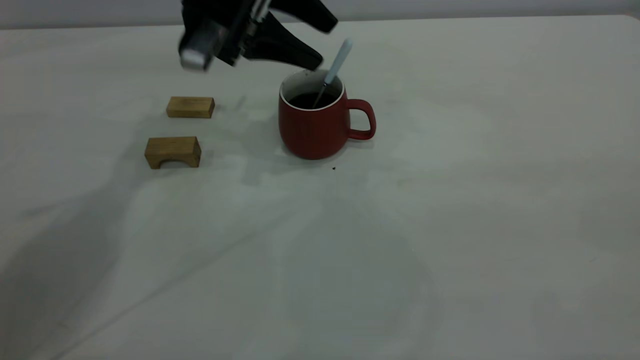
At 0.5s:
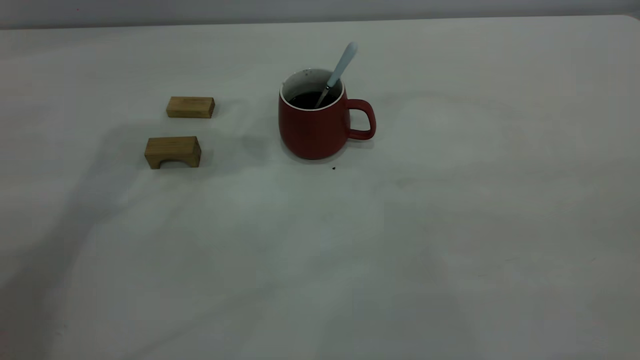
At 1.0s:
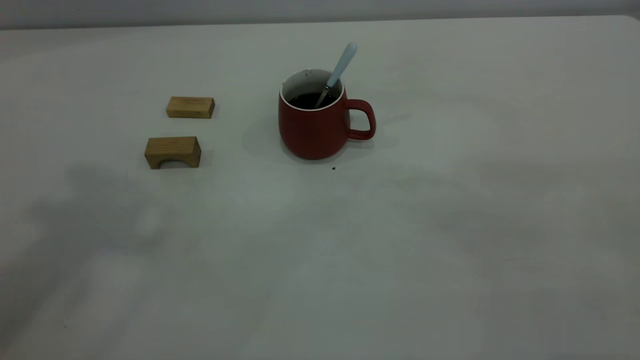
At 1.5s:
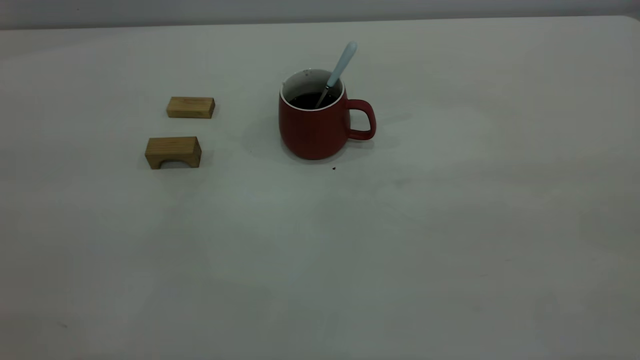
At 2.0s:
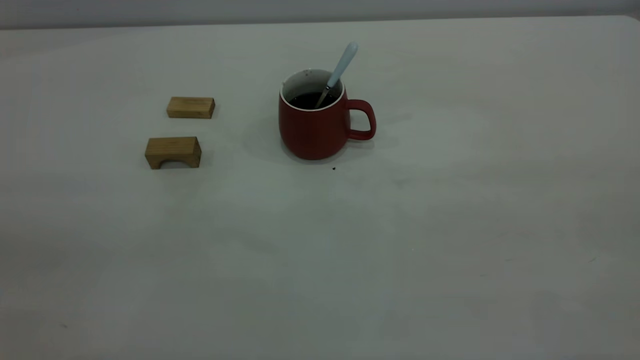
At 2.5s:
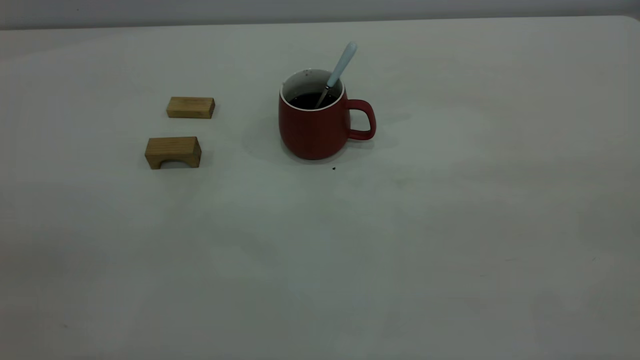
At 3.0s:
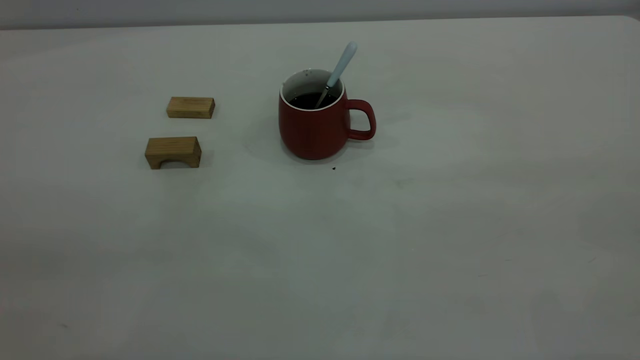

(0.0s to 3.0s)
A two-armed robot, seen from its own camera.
0.0s - 1.5s: The left gripper is displaced backward, upward and to the left by about 50 cm.

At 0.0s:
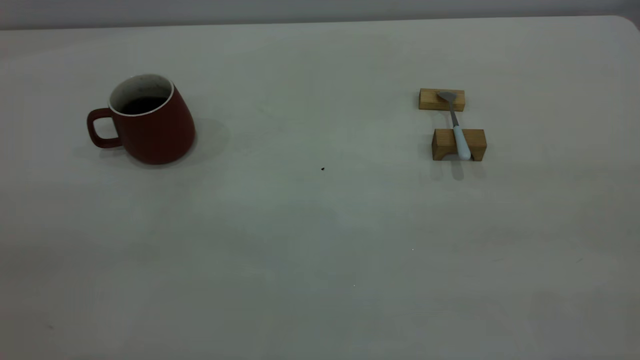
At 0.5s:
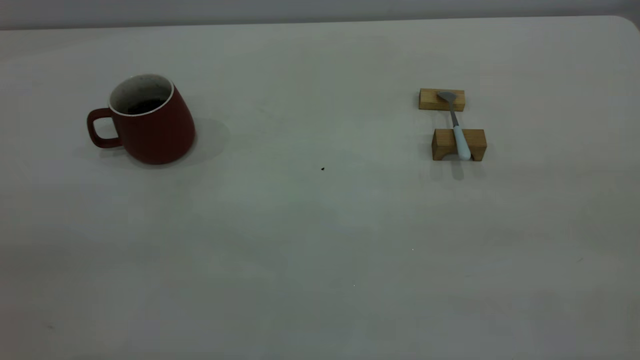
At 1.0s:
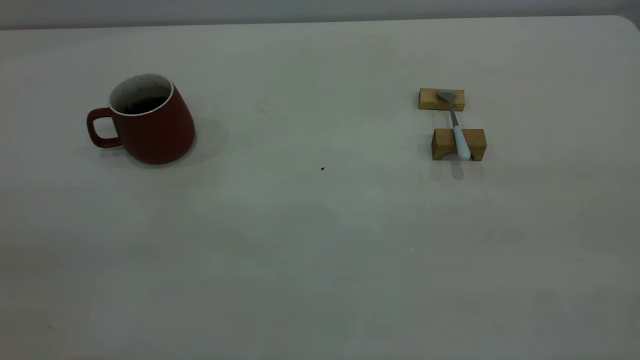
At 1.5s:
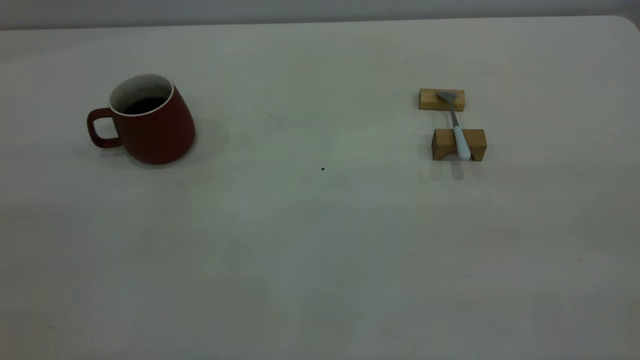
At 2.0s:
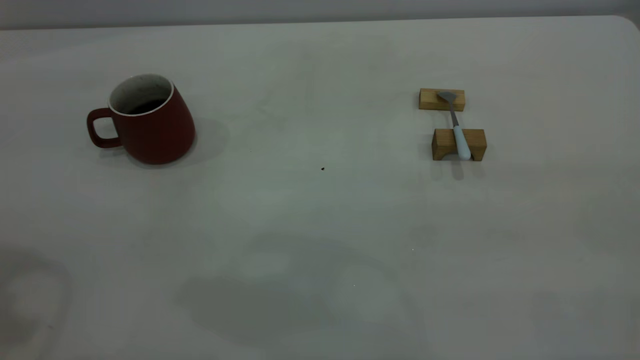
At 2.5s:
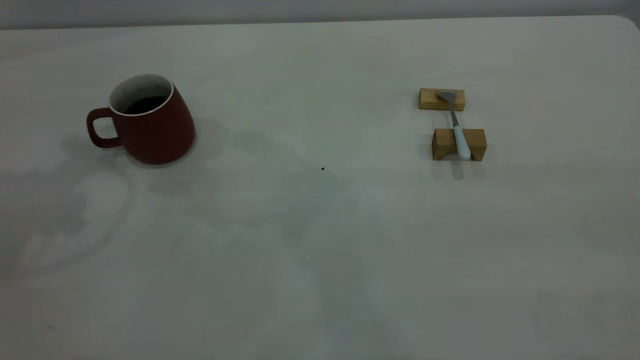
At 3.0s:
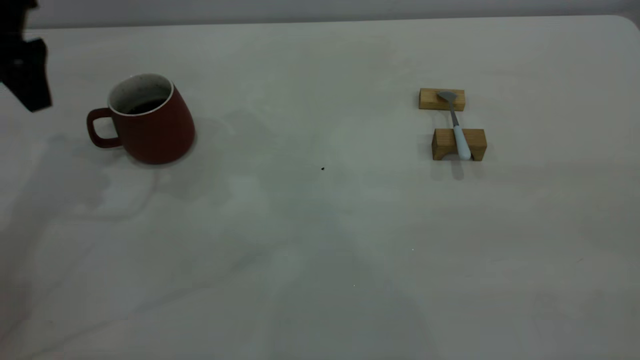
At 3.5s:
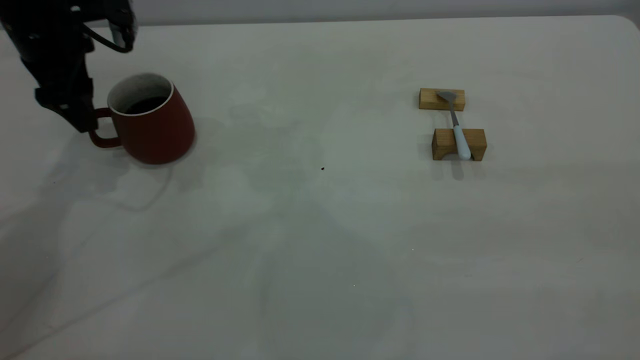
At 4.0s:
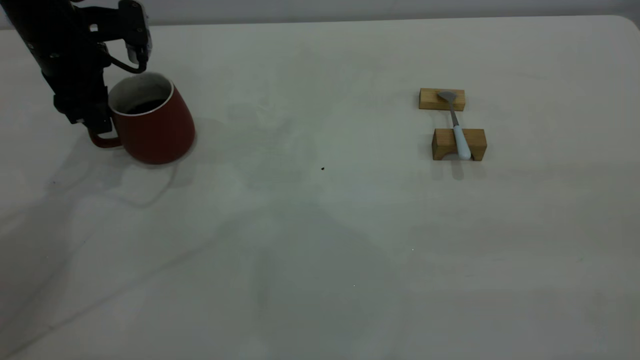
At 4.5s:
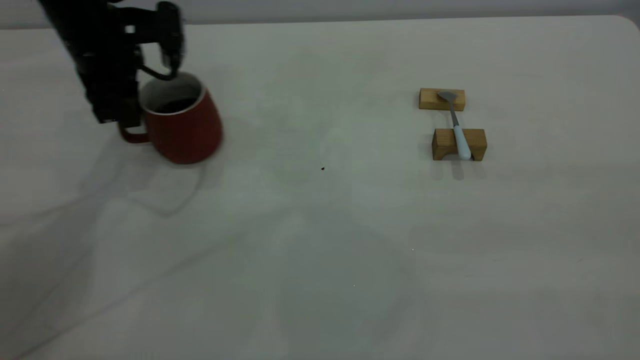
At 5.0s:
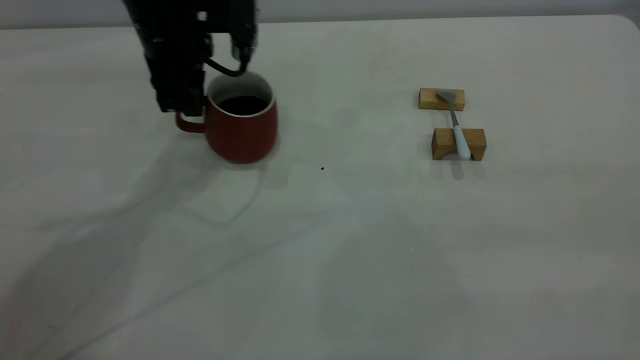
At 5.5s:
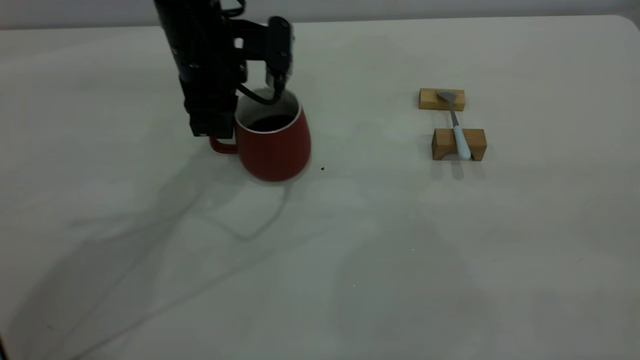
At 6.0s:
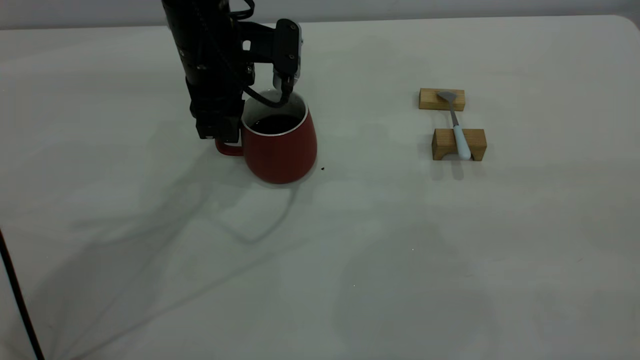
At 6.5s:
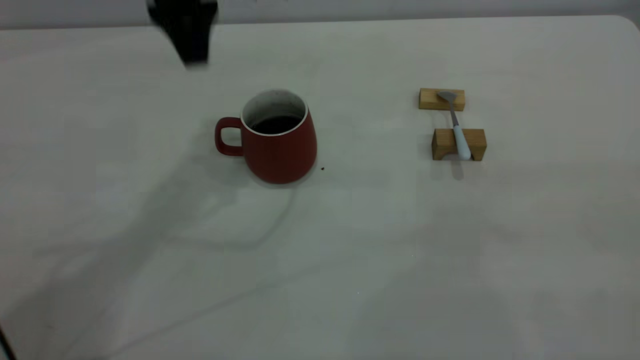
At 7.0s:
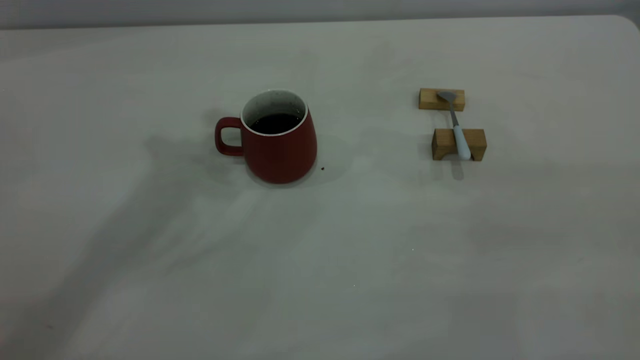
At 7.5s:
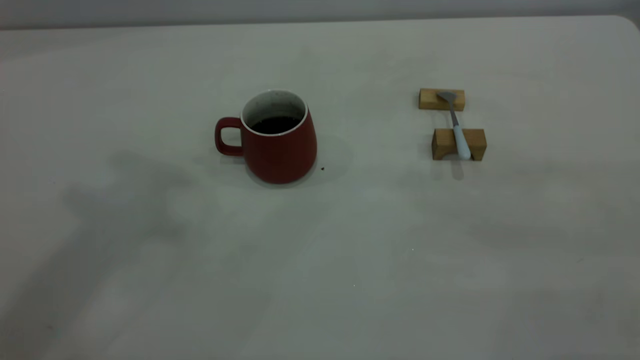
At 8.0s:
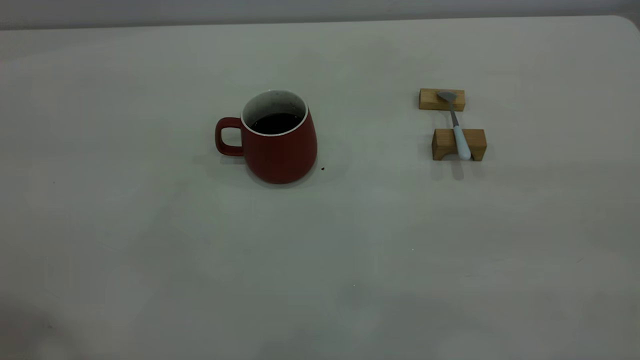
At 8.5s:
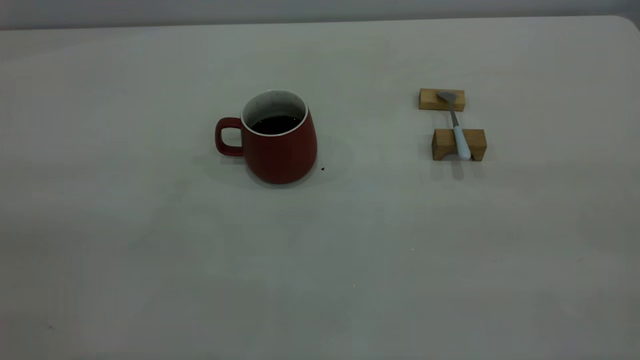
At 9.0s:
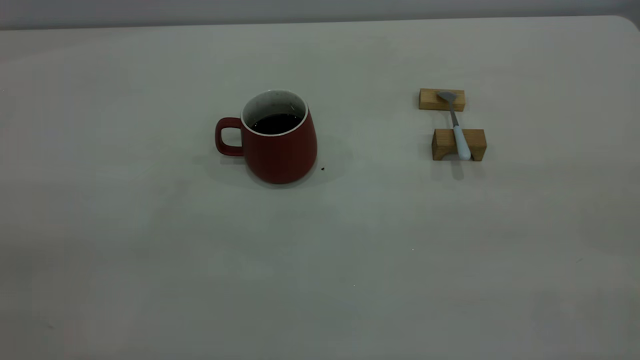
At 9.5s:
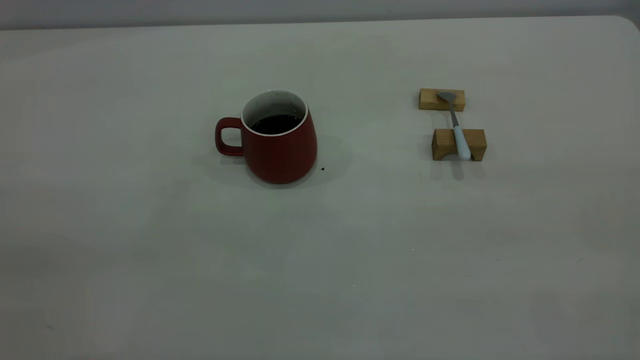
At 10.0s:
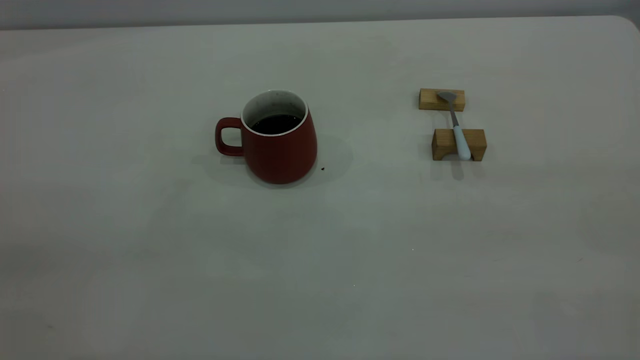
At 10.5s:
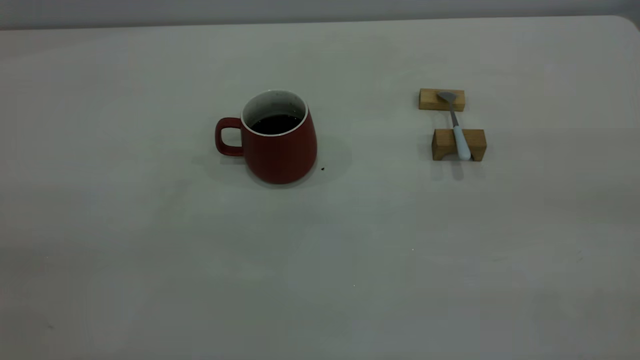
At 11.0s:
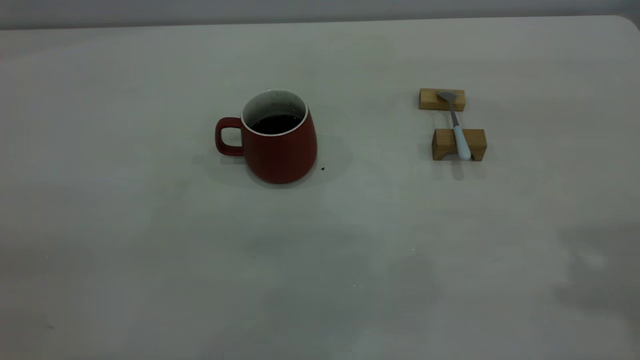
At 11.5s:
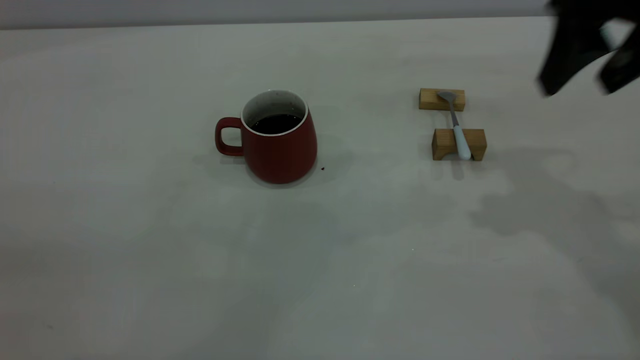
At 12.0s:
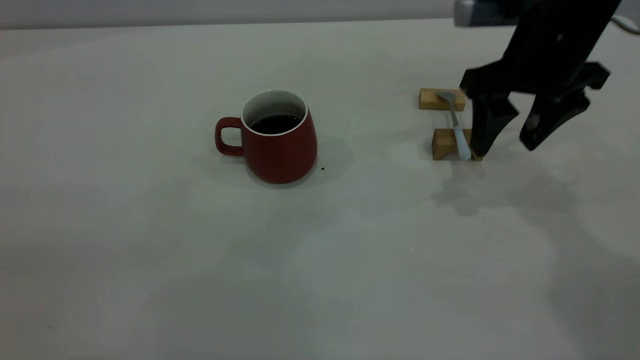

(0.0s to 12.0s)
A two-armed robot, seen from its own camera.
Step, 0.0s - 6.0s: Move the cup with coffee to the center of view.
2.0s - 4.0s: The left gripper goes roughly 35 cm downward and forward, and opens, then closes again.
4.0s - 6.0s: The left gripper shifts some 15 cm to the right.
6.0s - 8.0s: The left gripper moves upward, backward and to the left, about 40 cm, and opens and closes again.
10.0s - 12.0s: The right gripper moves forward and downward, roughly 40 cm, and opens up.

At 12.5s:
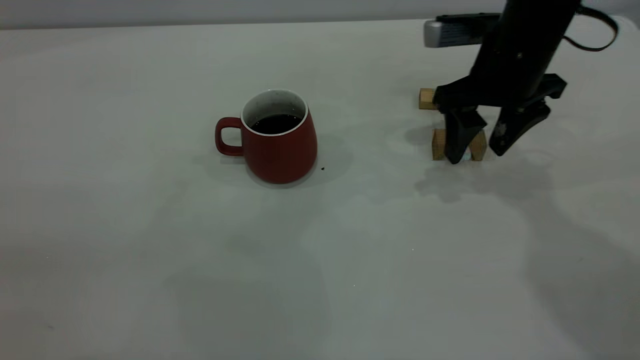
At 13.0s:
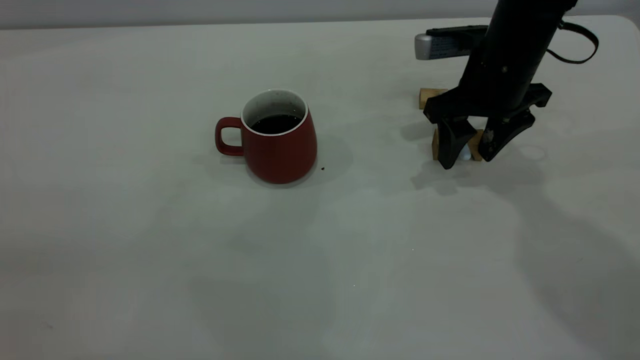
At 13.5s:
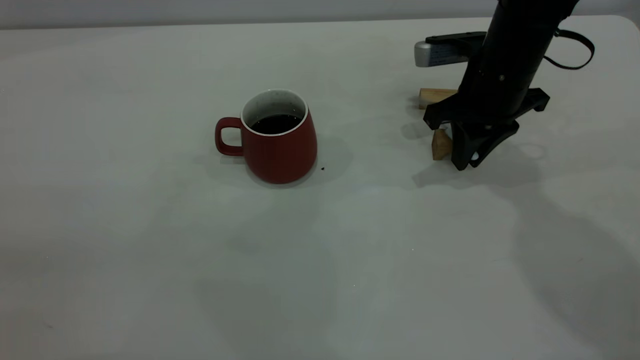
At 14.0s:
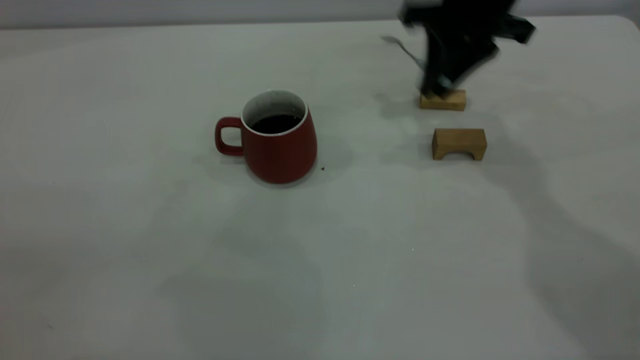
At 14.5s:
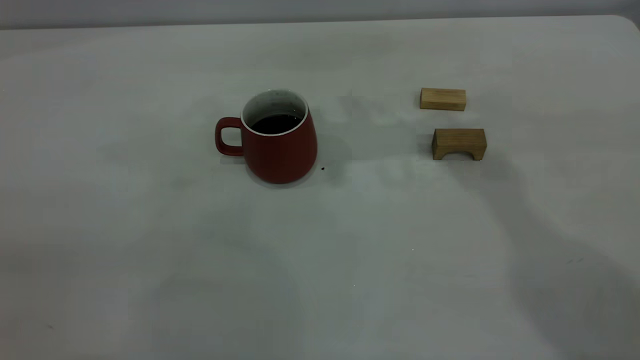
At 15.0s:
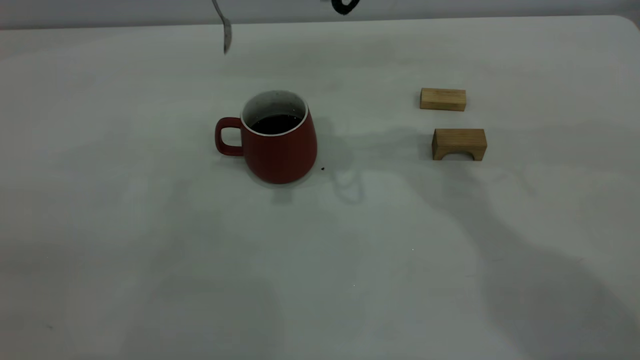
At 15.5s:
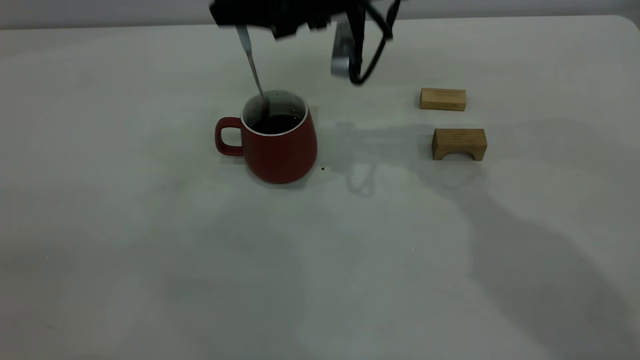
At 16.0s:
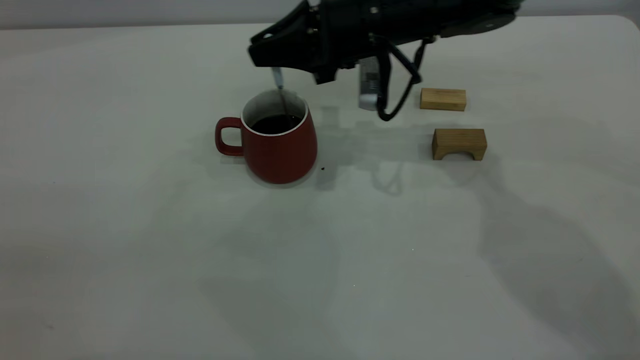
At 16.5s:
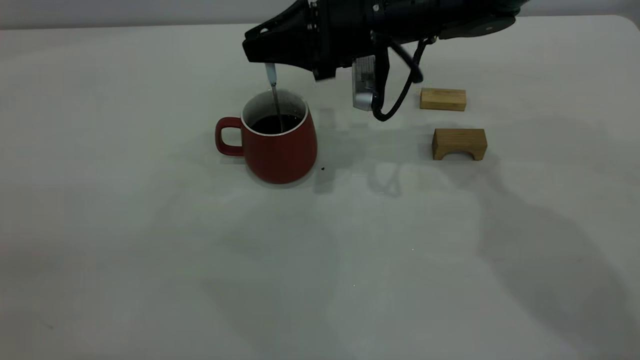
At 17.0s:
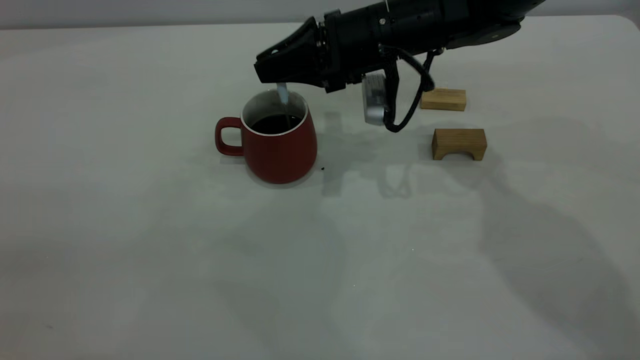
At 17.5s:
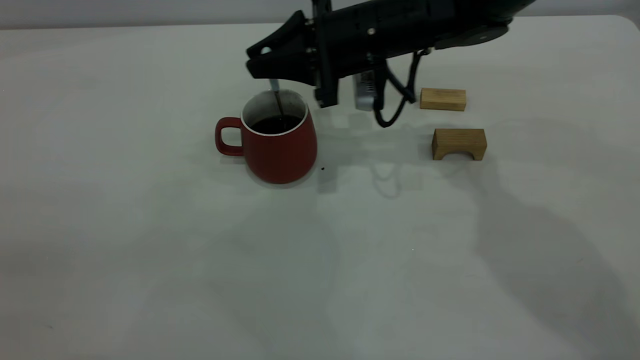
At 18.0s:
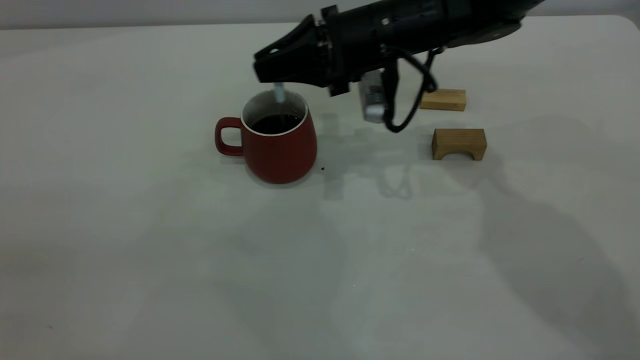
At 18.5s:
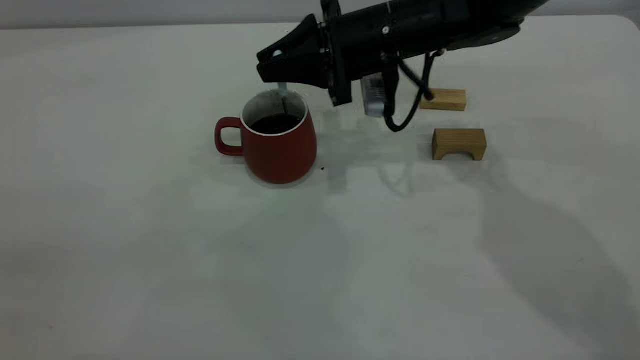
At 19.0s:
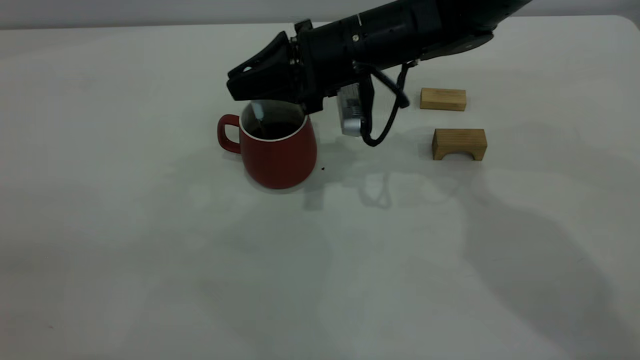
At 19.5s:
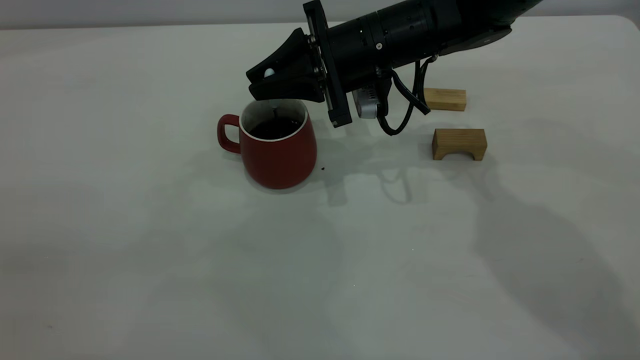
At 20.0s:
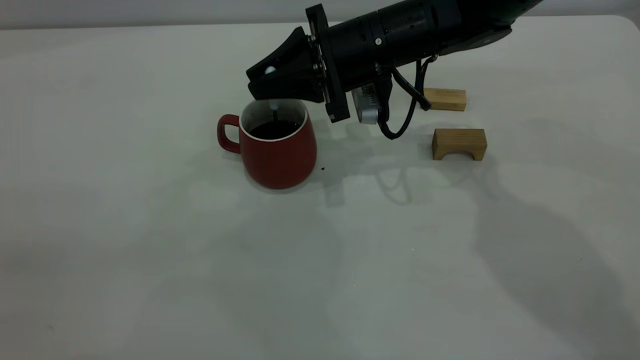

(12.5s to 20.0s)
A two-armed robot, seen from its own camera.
12.5s - 14.5s: The right gripper is displaced upward and to the left by roughly 20 cm, and closes its fingers.
14.5s - 16.5s: The right gripper goes some 15 cm downward.
16.5s - 18.0s: There are only small adjustments of the grippers.
